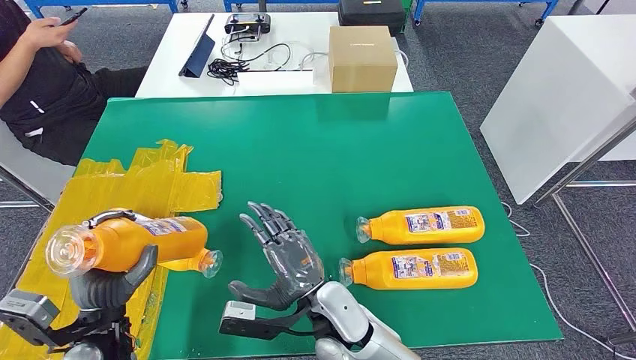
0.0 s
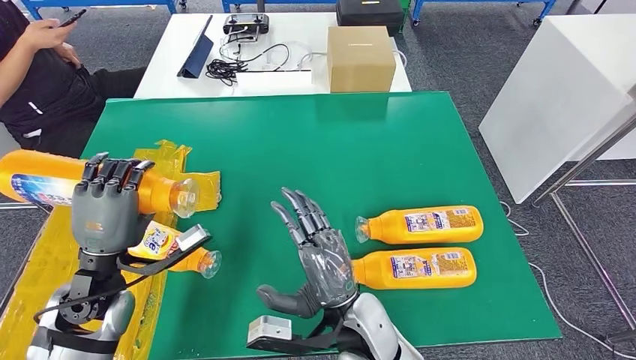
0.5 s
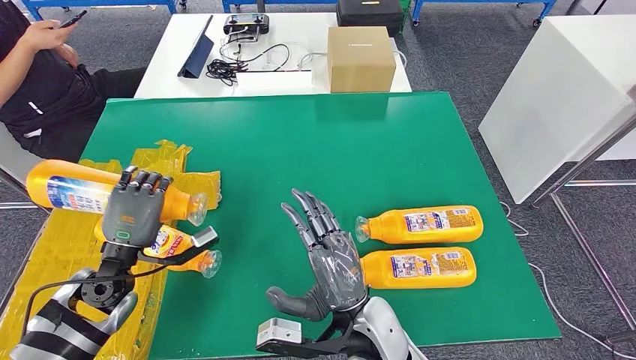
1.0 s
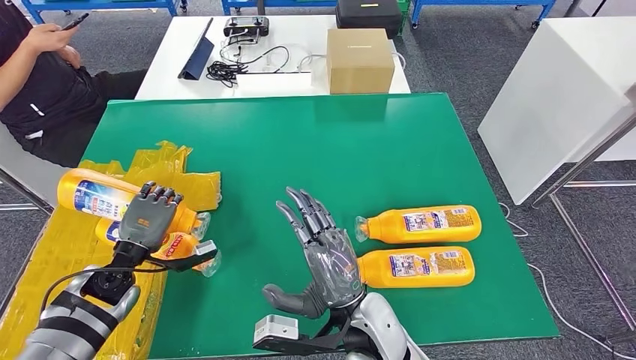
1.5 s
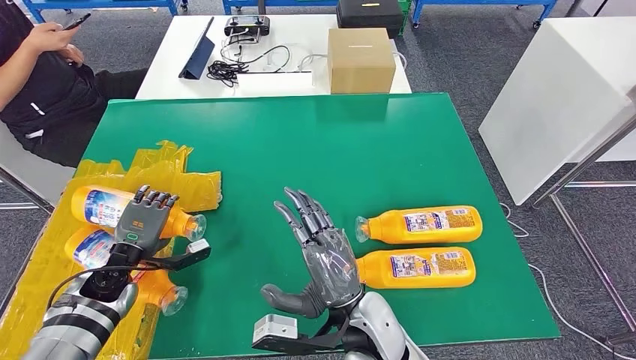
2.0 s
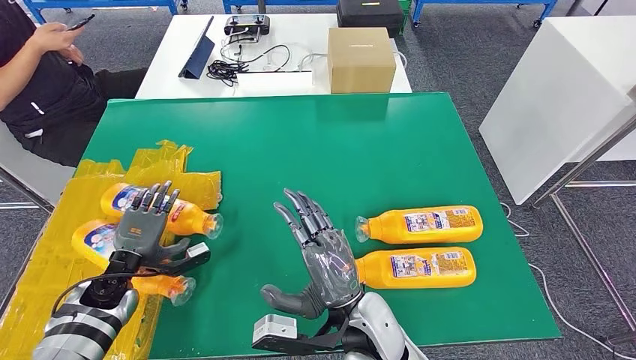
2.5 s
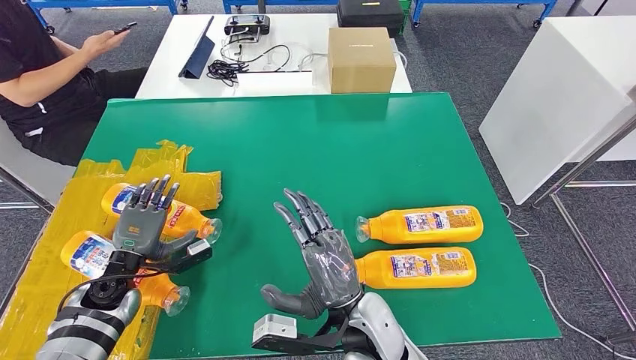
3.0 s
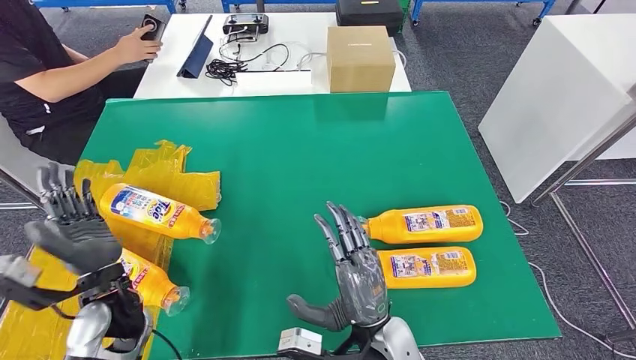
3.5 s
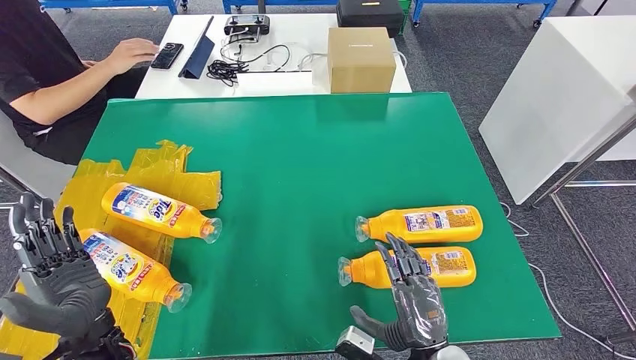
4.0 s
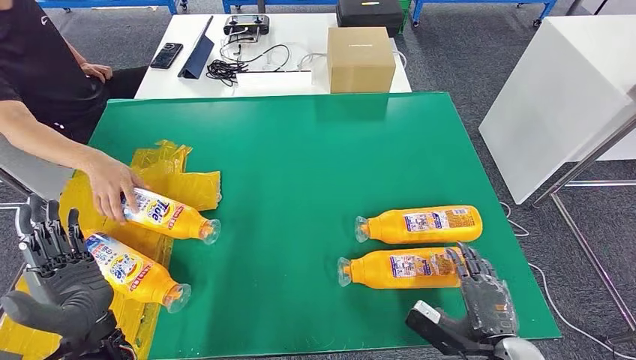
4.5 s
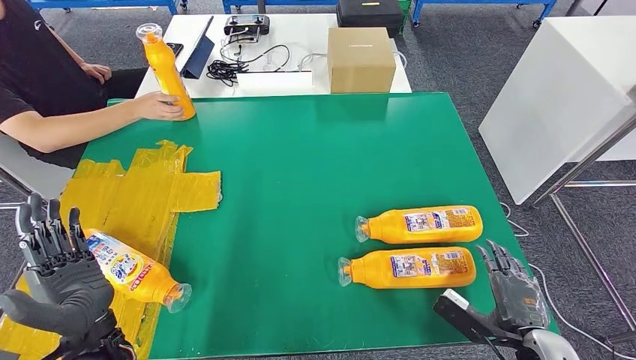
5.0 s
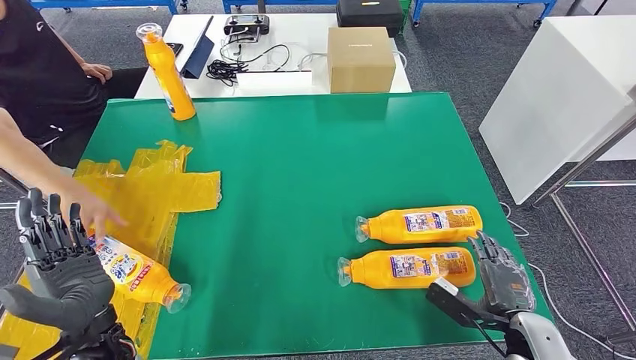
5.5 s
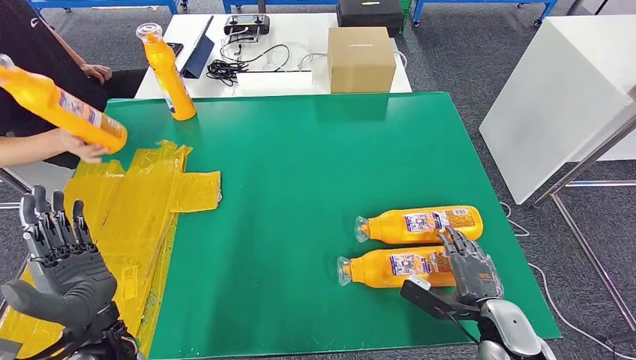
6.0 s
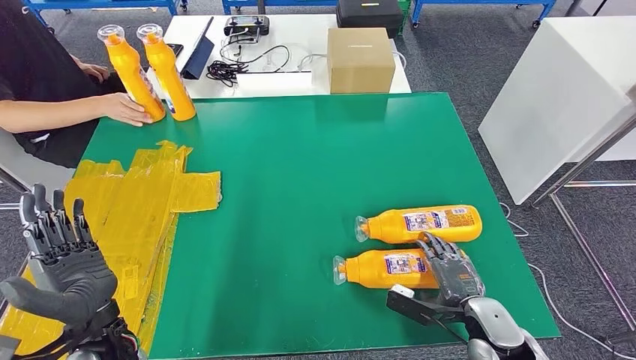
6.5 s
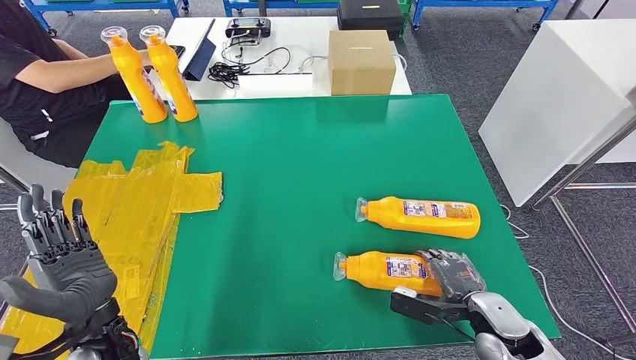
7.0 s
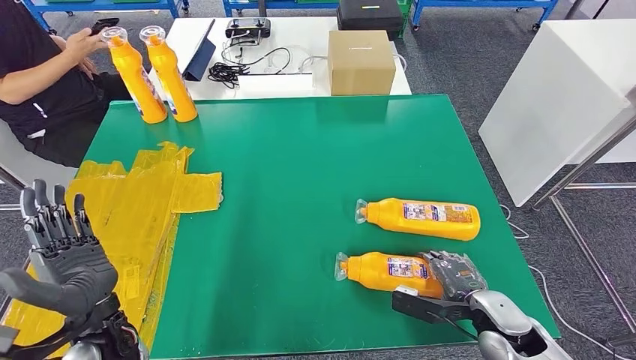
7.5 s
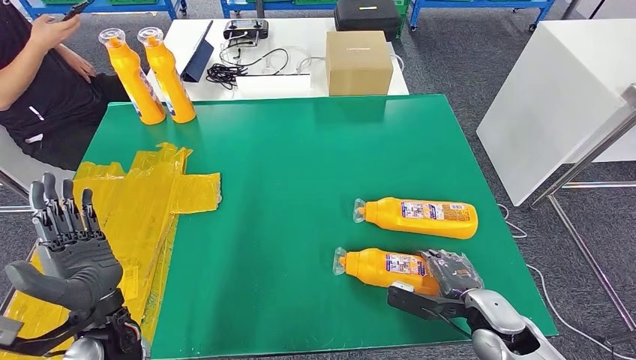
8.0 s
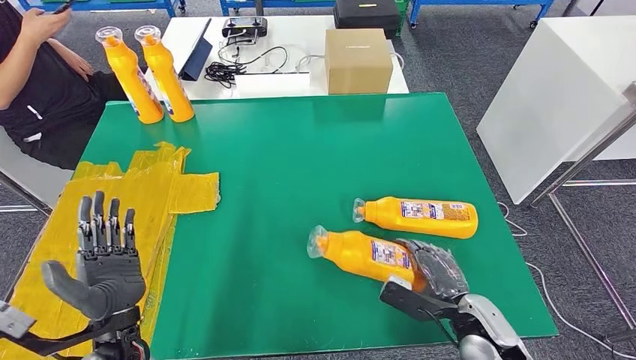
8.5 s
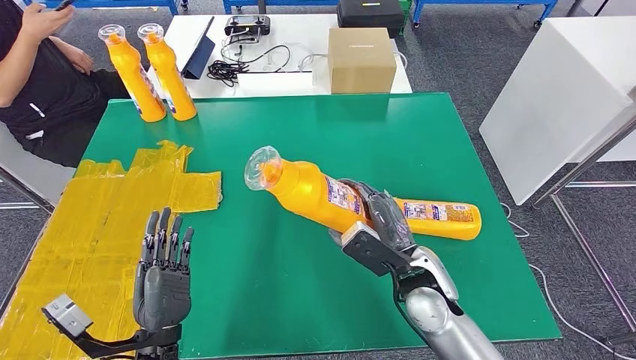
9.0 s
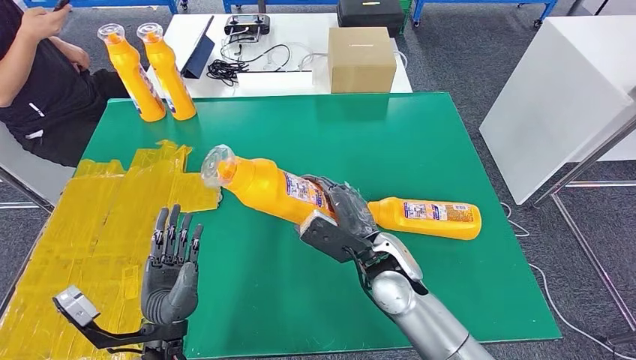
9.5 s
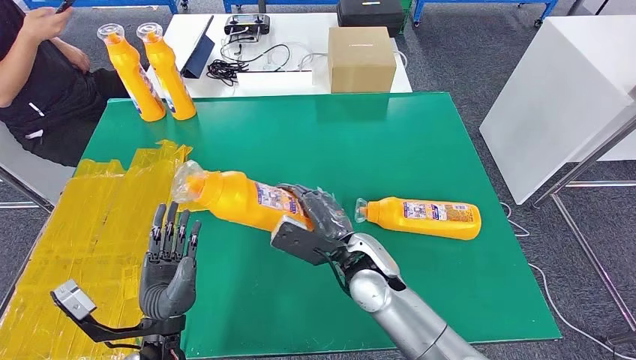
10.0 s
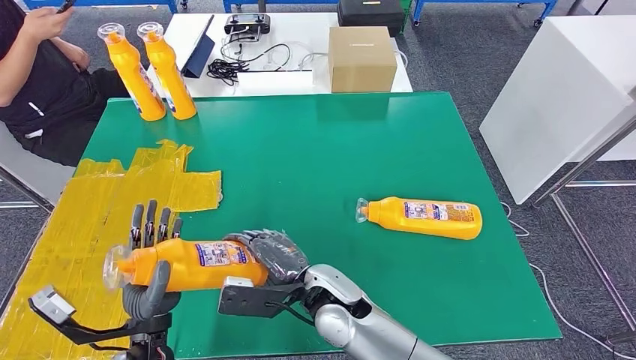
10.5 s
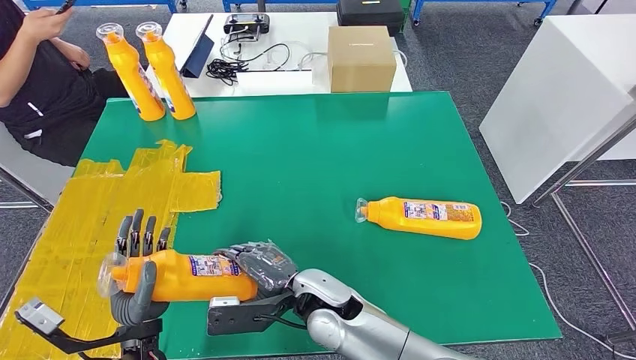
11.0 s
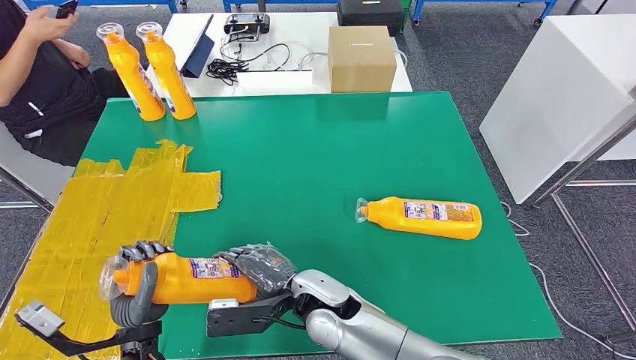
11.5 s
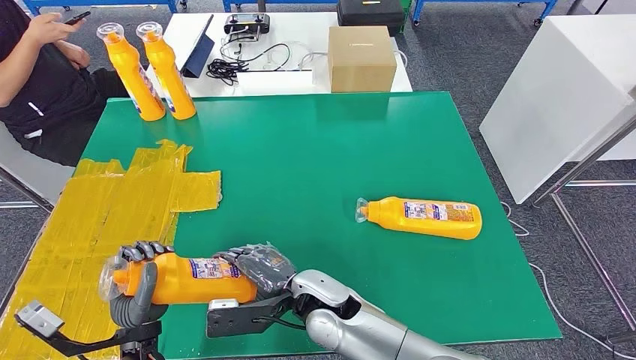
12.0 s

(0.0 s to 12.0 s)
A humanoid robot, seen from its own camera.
10.0 s - 12.0 s: The right hand shifts some 10 cm to the left and backward.

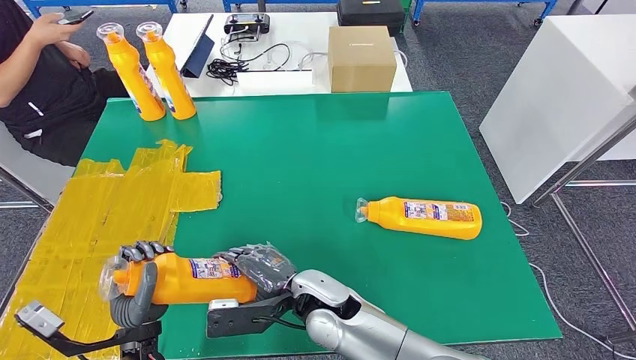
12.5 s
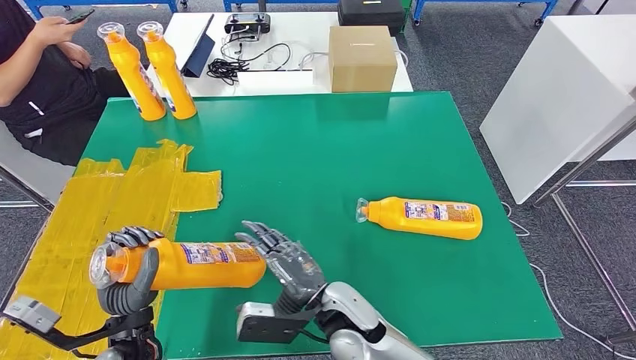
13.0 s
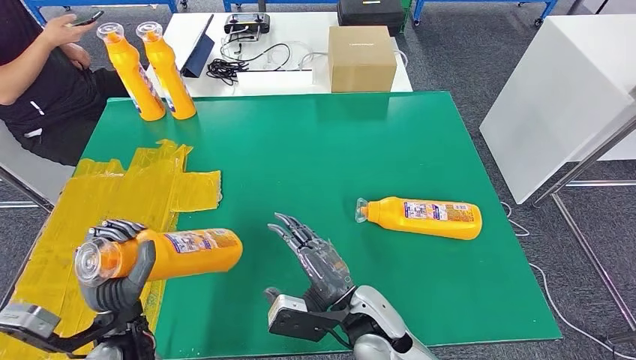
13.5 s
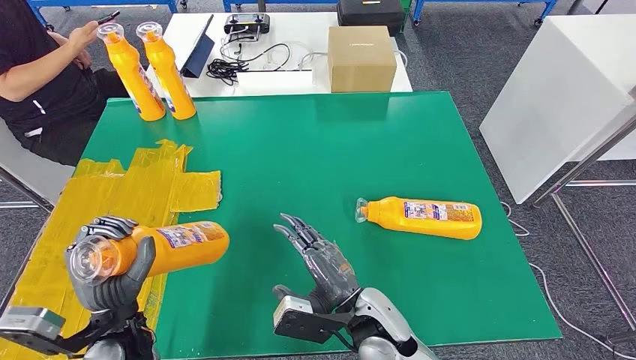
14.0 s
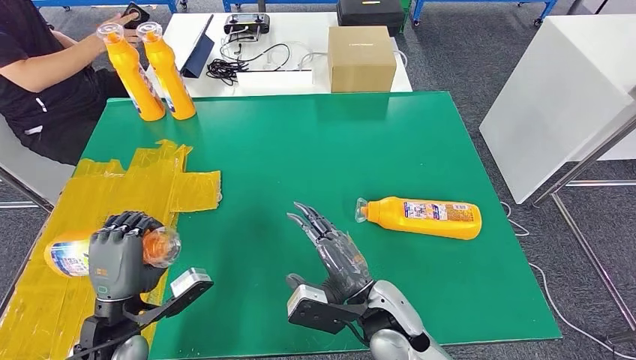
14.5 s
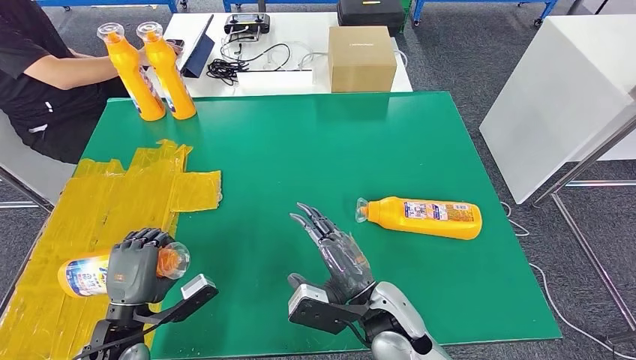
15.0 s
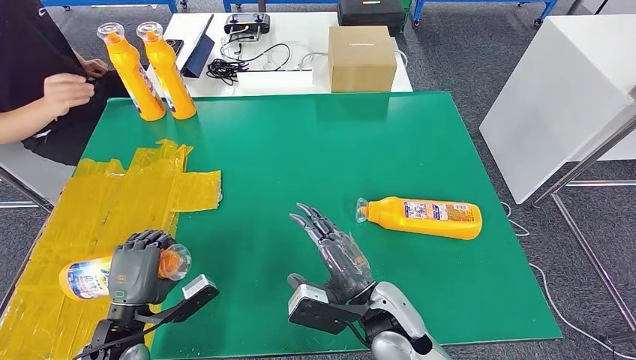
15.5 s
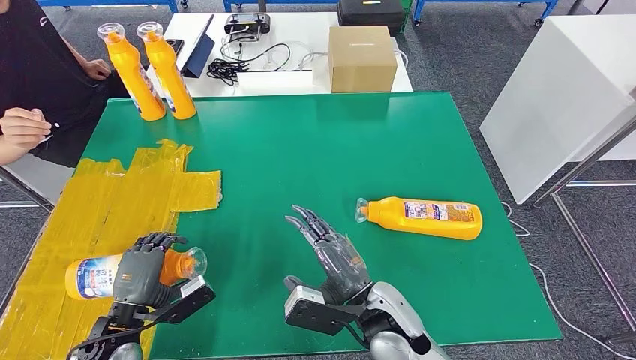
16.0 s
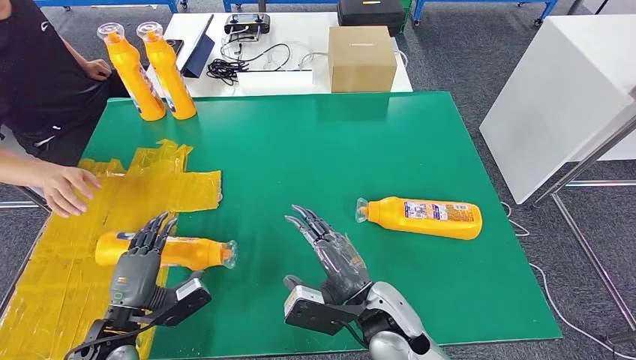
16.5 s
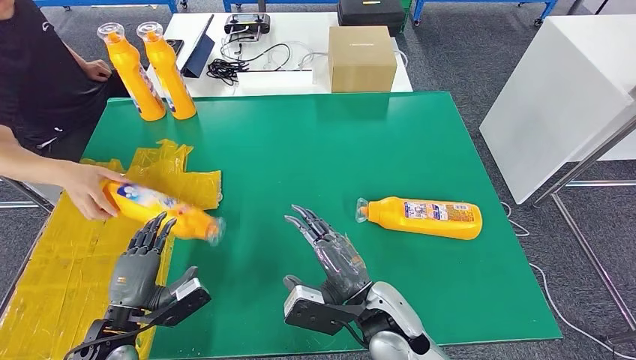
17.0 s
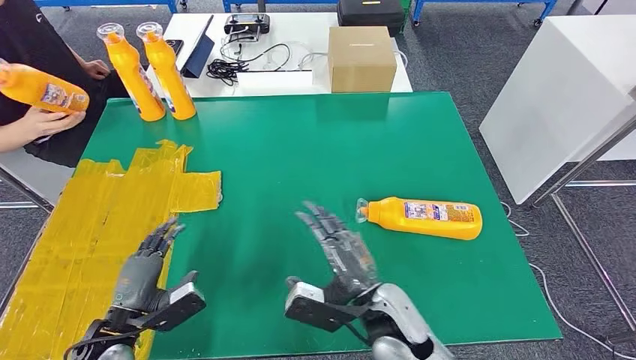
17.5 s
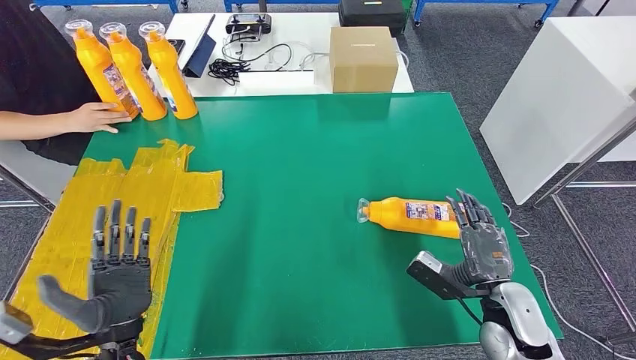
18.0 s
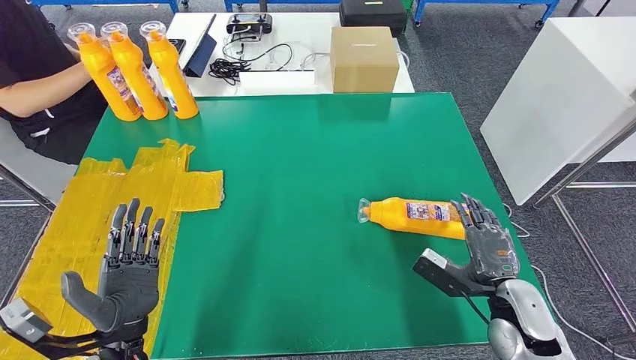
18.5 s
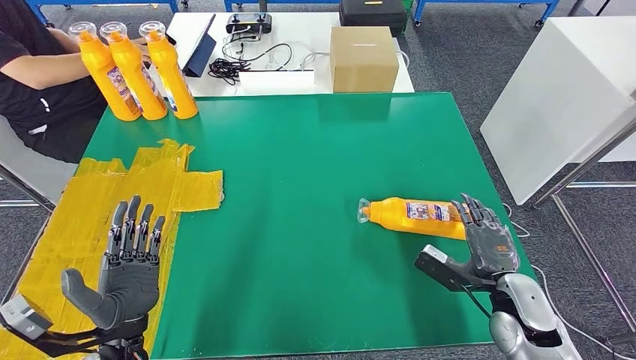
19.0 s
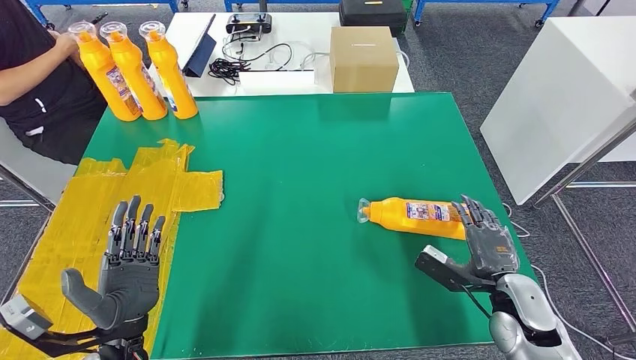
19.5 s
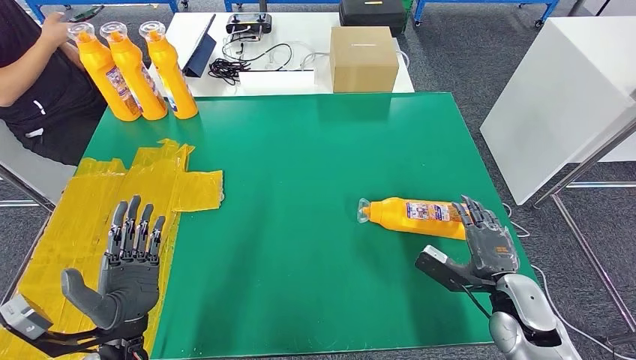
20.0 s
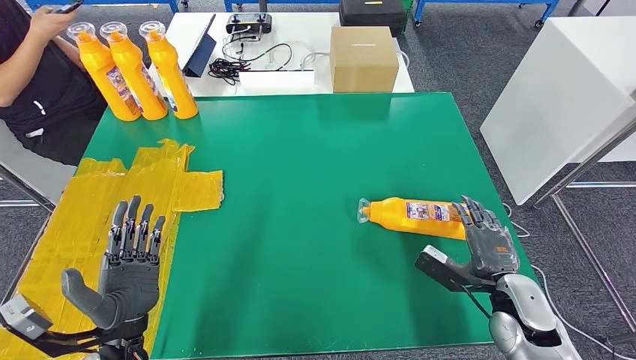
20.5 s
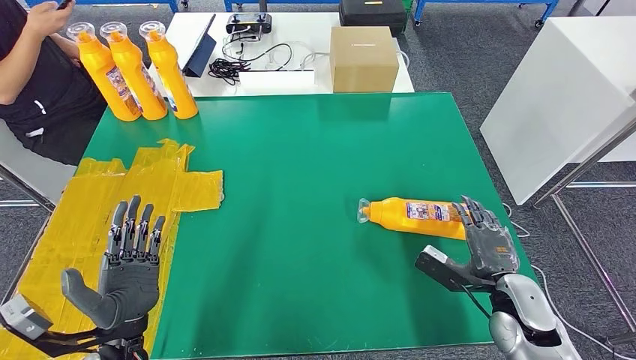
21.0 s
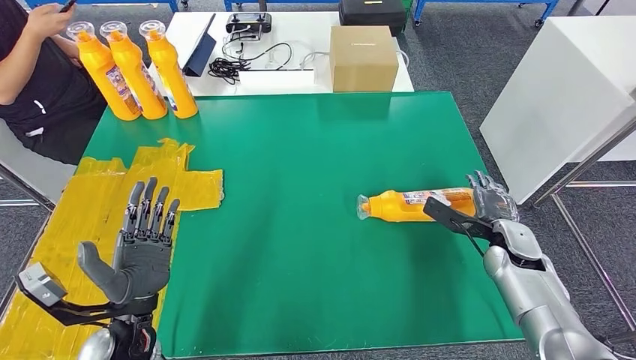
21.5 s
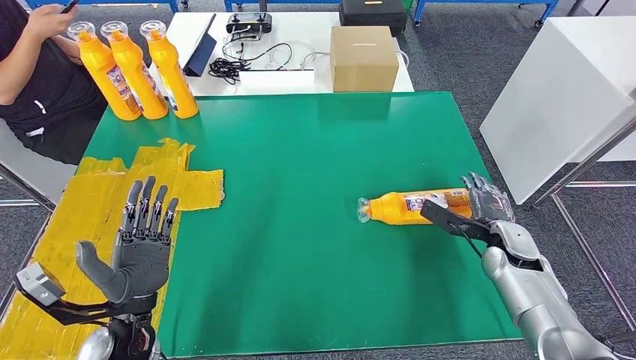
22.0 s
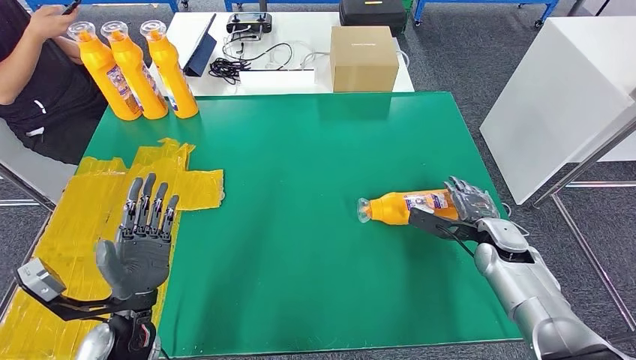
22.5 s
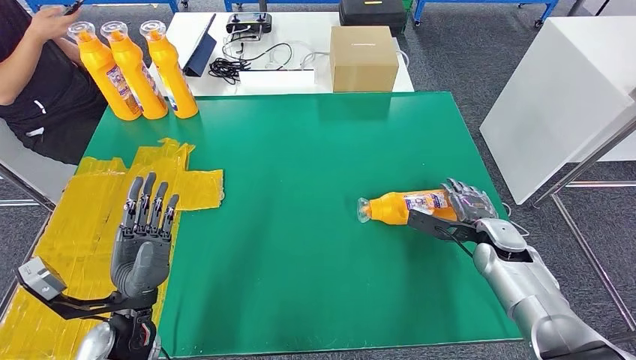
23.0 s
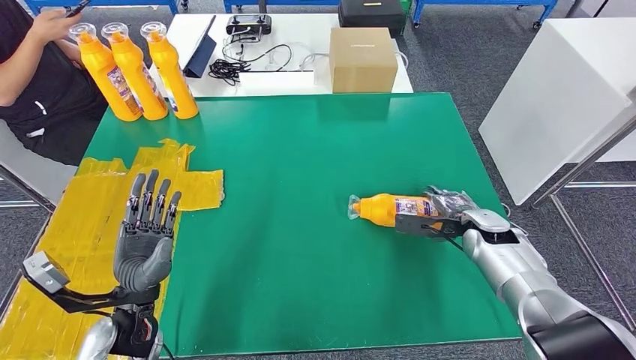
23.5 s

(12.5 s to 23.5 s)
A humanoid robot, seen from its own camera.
Step, 12.5 s - 16.0 s: Flip the fast-moving consumer goods bottle to the front side.
12.5 s - 14.5 s: The right hand shifts roughly 10 cm to the right; the left hand shifts by some 5 cm.
14.5 s - 16.0 s: The left hand goes some 5 cm downward.
18.0 s - 20.0 s: The hands move only a little.
20.0 s - 21.5 s: The right hand moves forward, roughly 10 cm.
21.5 s - 23.5 s: The right hand ends up roughly 5 cm from where it was.
